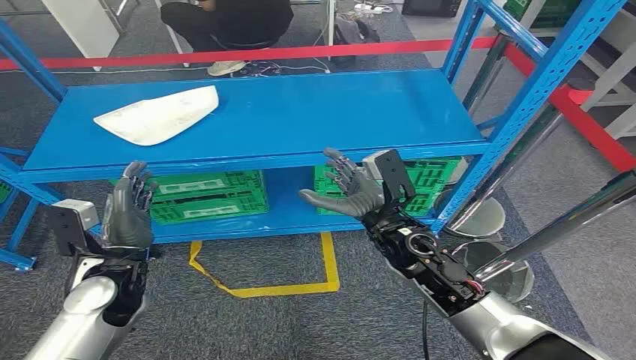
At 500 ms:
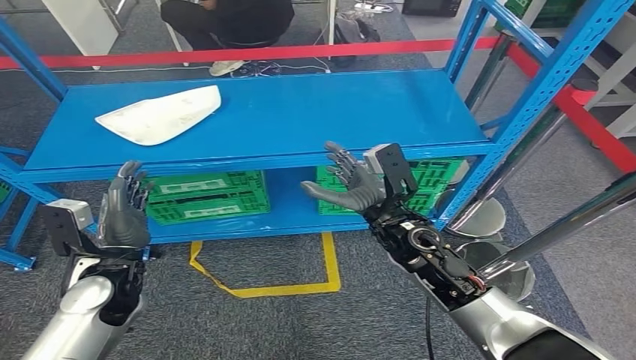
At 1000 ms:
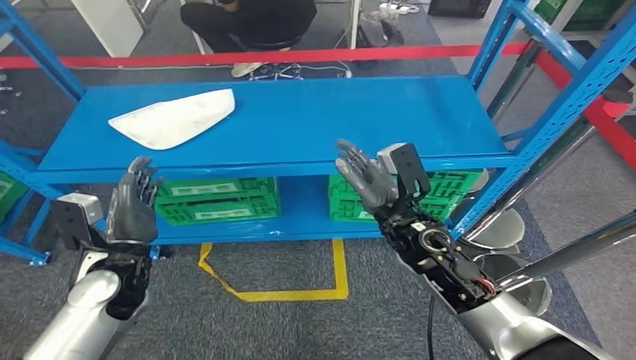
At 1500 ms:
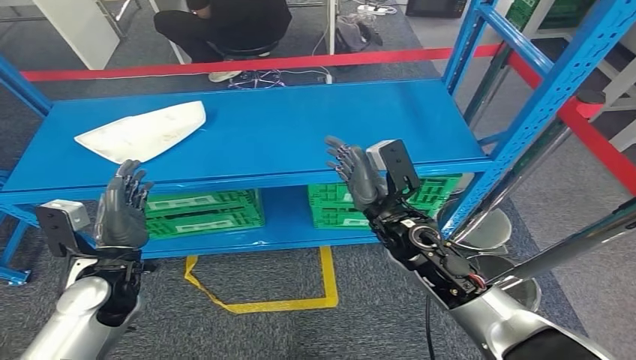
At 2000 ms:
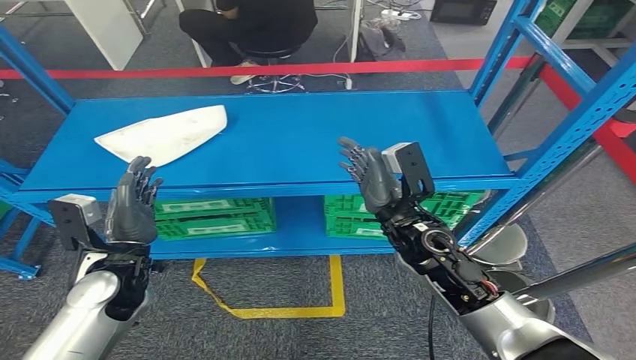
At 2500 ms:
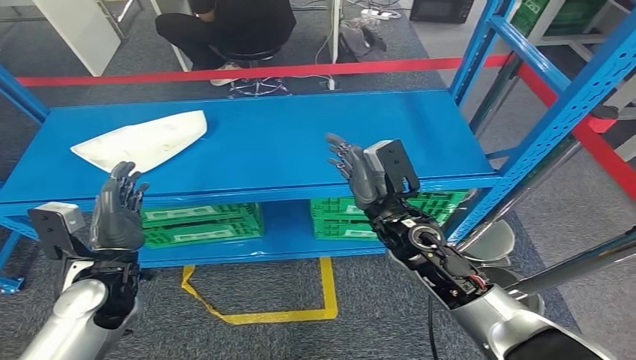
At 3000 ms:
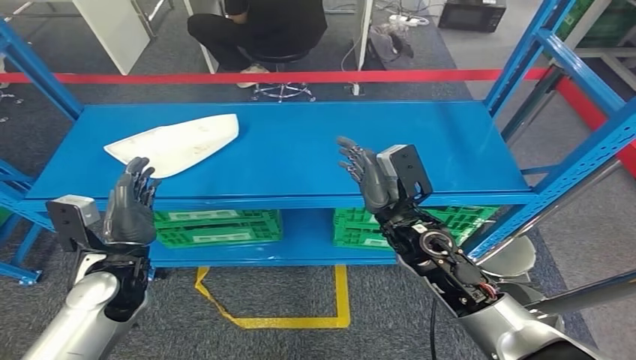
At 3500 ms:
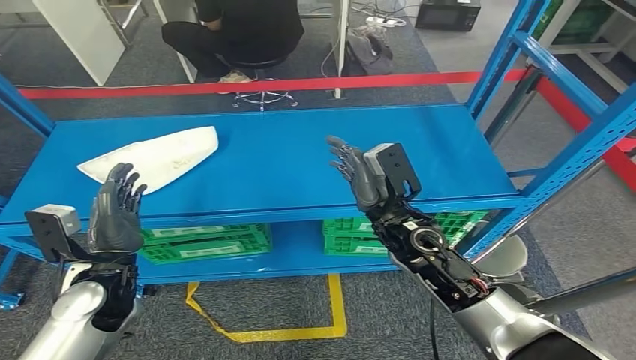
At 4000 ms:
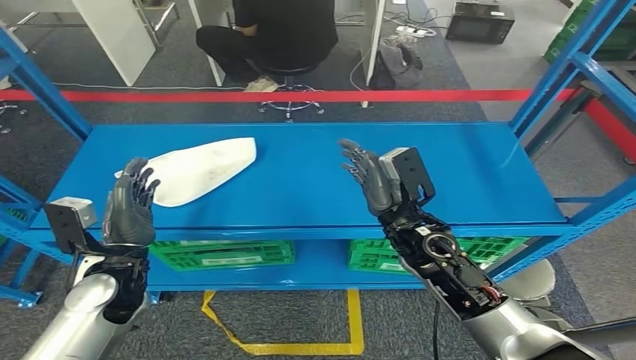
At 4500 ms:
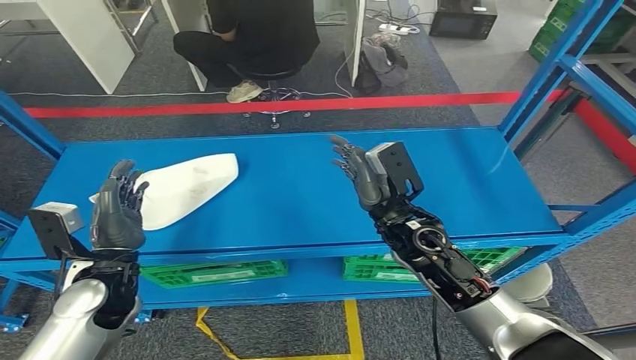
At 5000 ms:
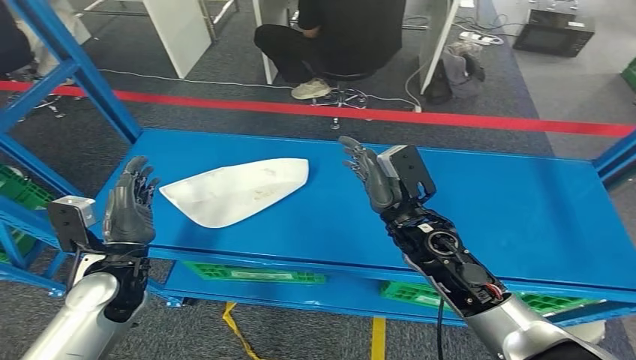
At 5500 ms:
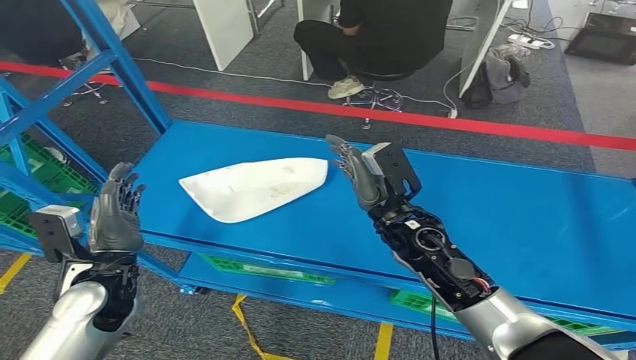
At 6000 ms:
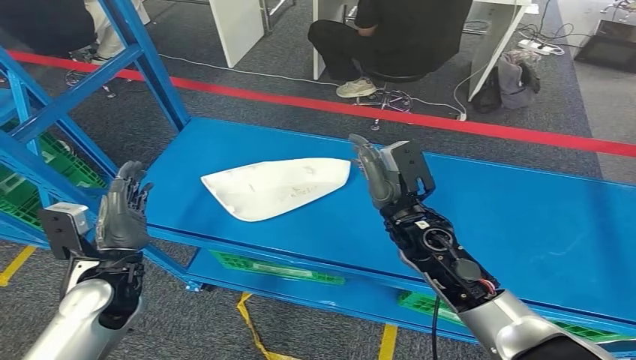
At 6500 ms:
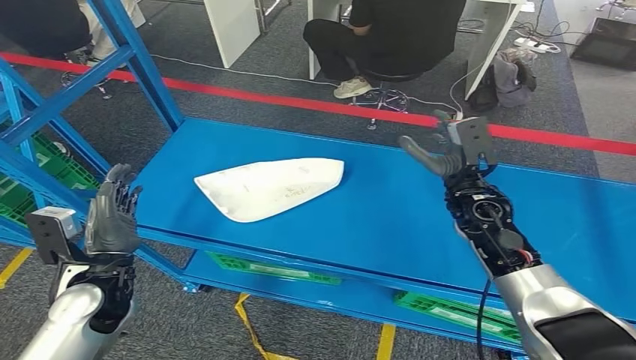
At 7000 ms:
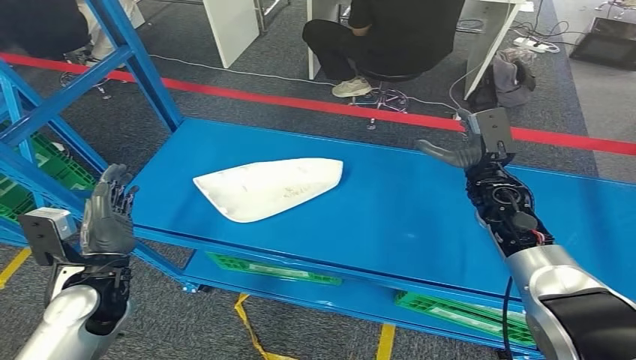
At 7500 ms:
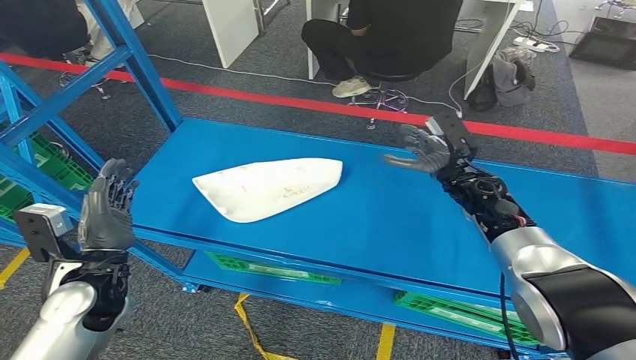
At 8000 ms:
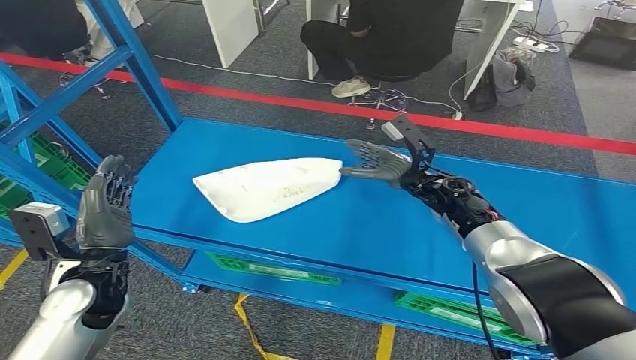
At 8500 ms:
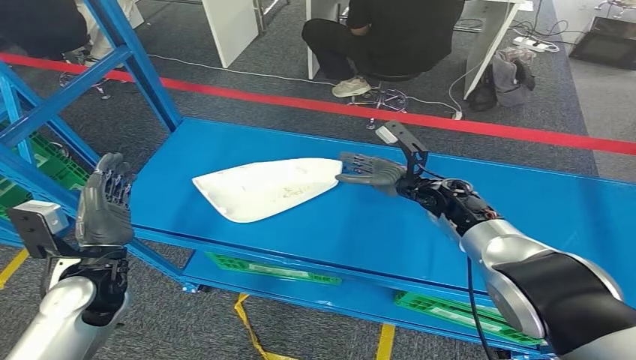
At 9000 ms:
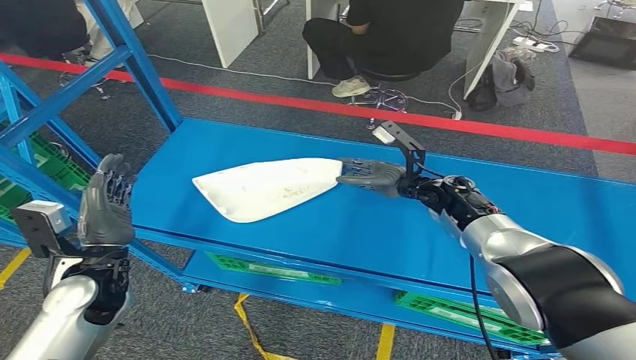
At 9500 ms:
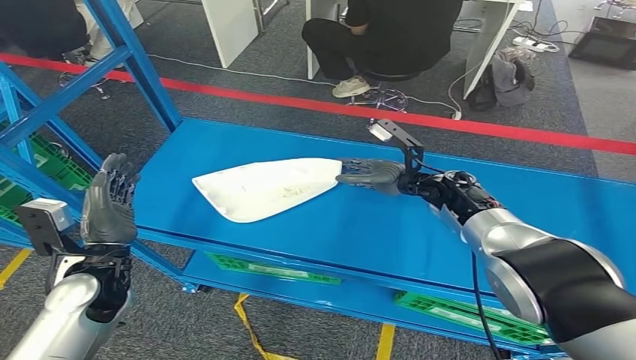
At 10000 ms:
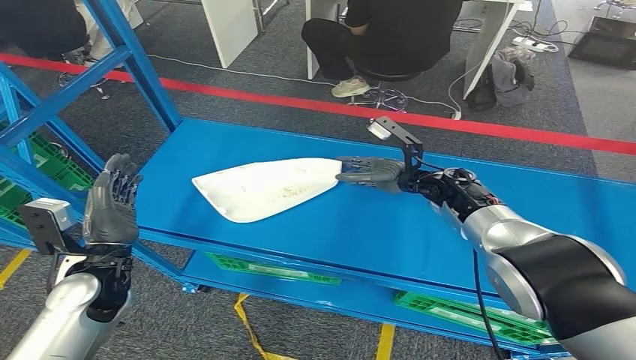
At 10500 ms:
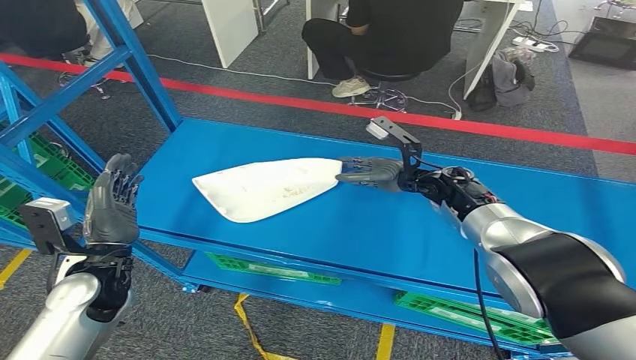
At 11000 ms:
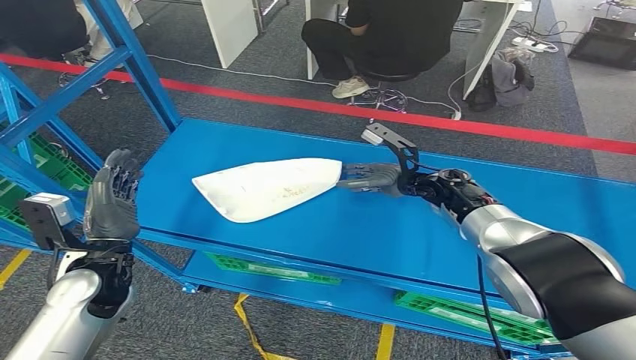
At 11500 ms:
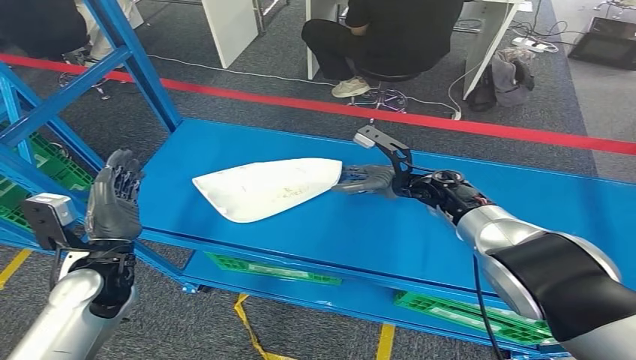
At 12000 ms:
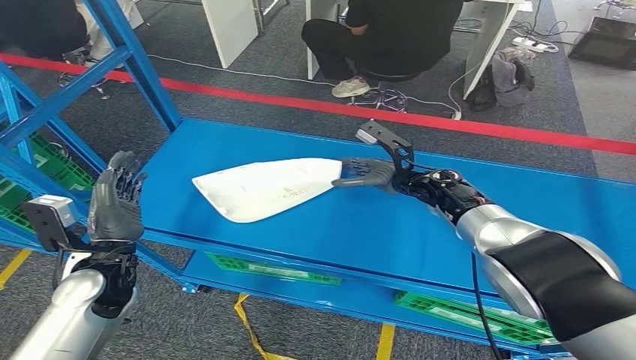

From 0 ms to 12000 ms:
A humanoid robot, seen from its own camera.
From 8000 ms to 10000 ms: The hands make only small movements.
From 10000 ms to 12000 ms: There are only small adjustments of the hands.

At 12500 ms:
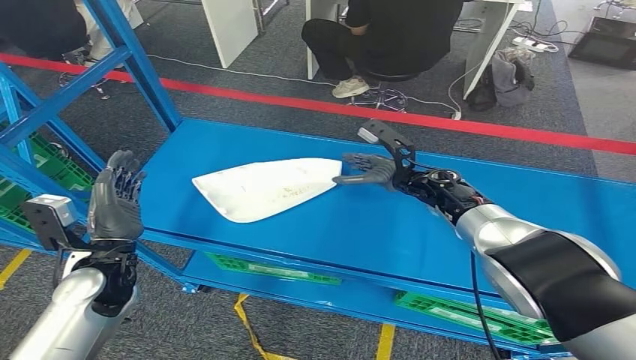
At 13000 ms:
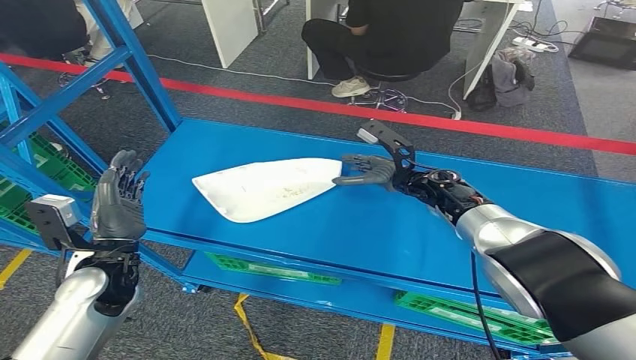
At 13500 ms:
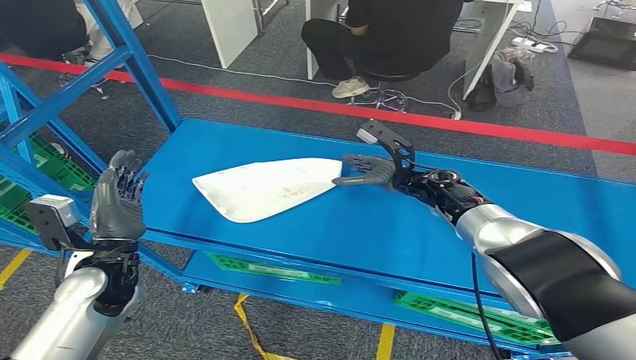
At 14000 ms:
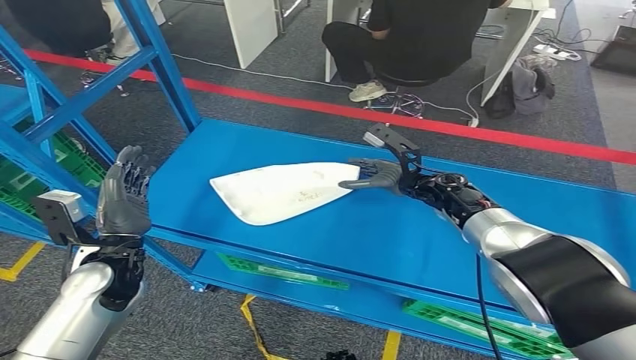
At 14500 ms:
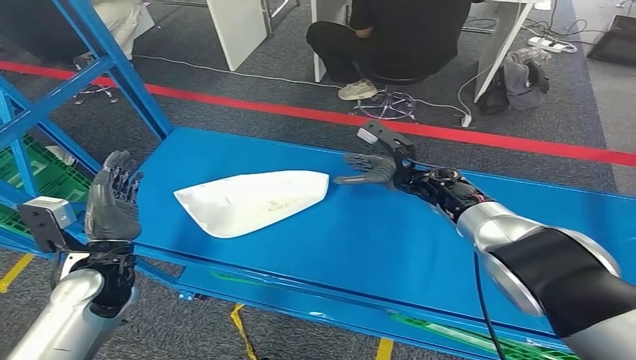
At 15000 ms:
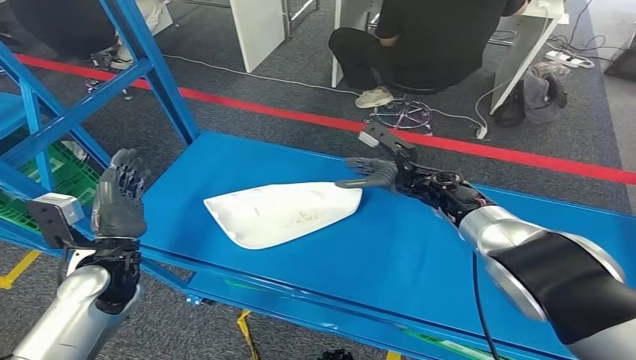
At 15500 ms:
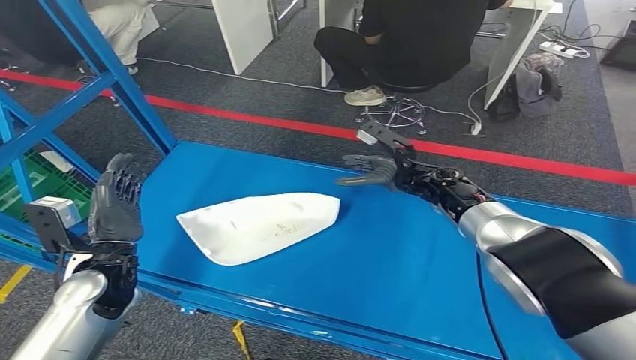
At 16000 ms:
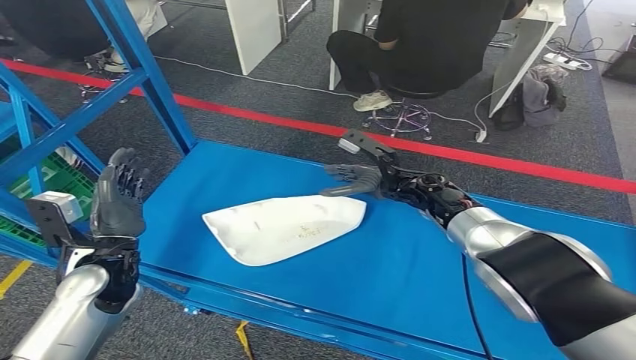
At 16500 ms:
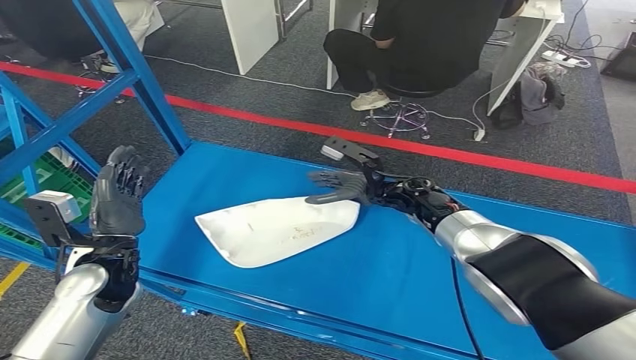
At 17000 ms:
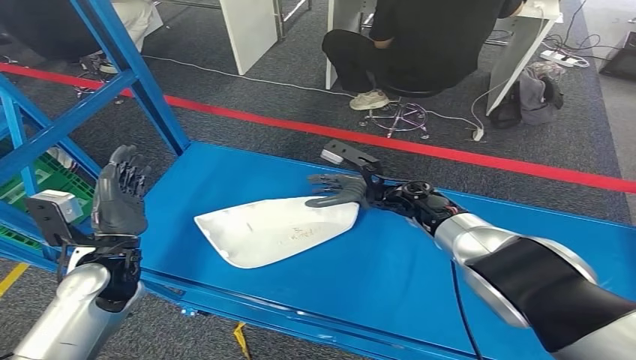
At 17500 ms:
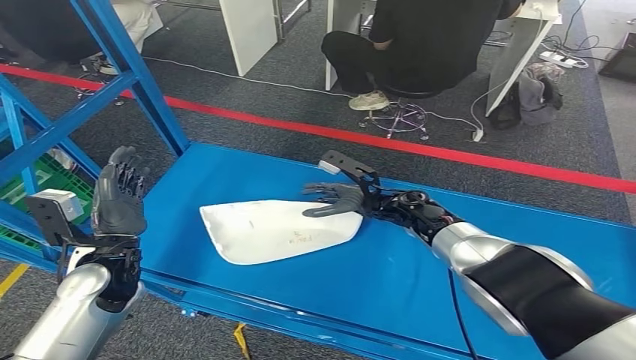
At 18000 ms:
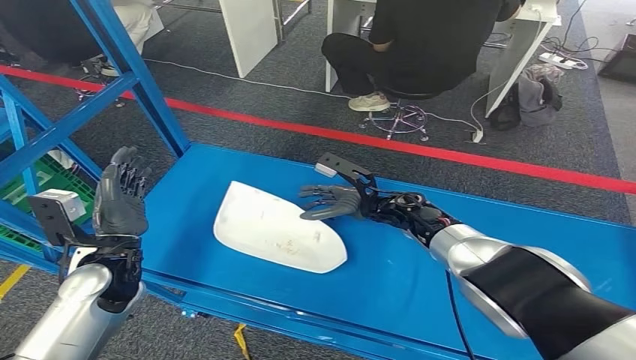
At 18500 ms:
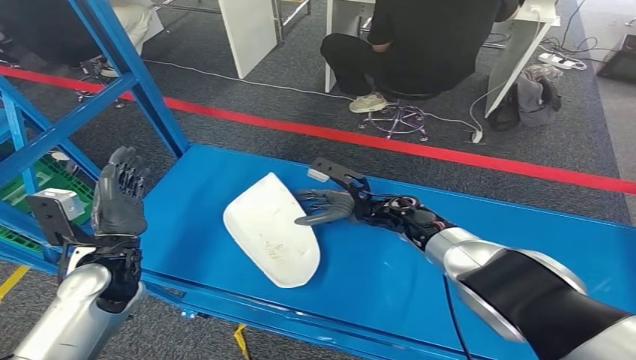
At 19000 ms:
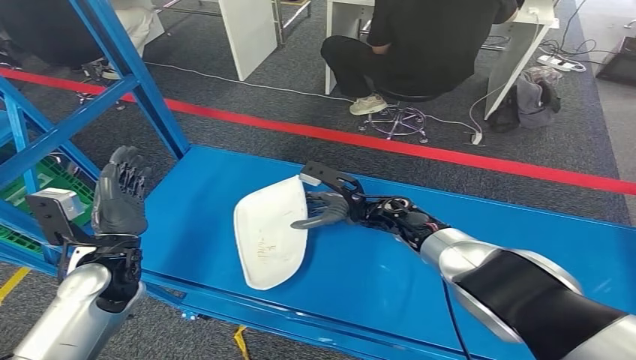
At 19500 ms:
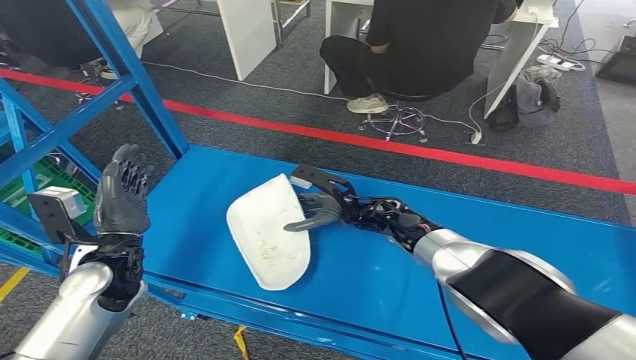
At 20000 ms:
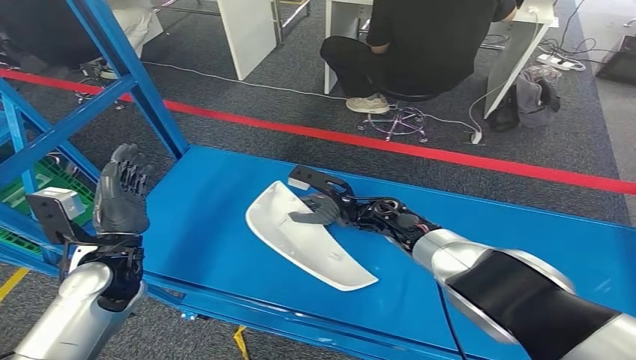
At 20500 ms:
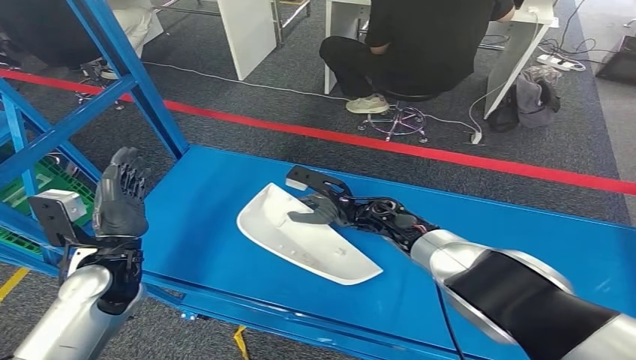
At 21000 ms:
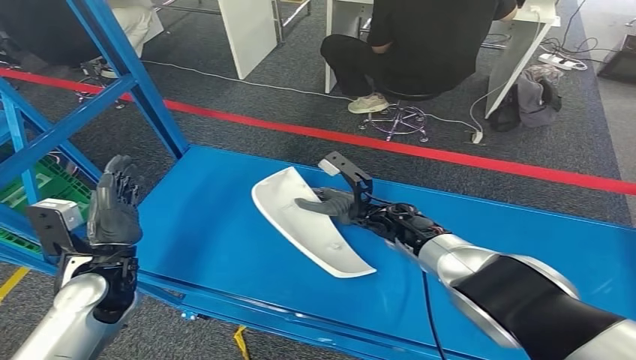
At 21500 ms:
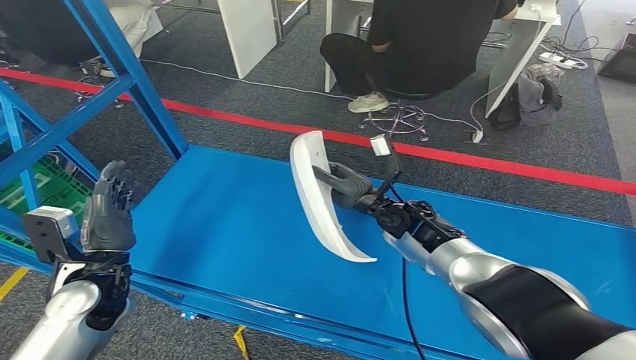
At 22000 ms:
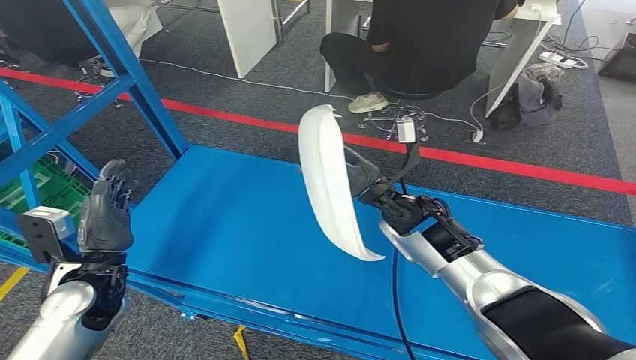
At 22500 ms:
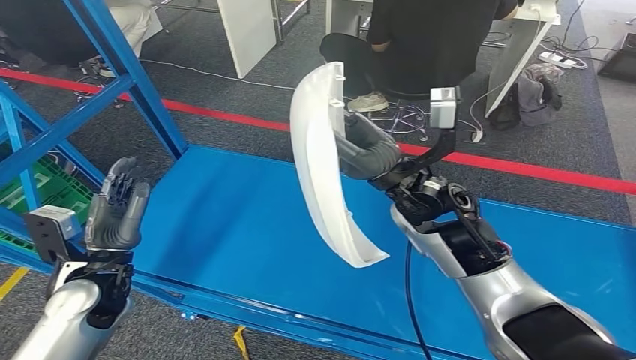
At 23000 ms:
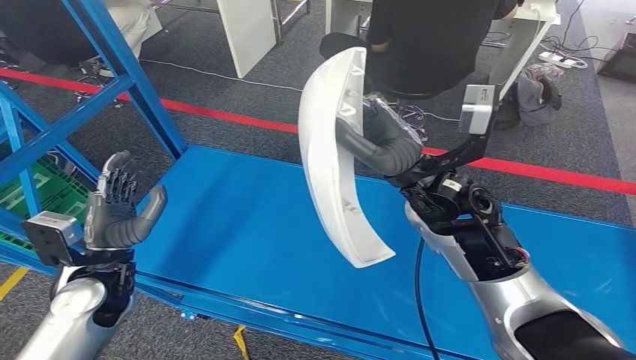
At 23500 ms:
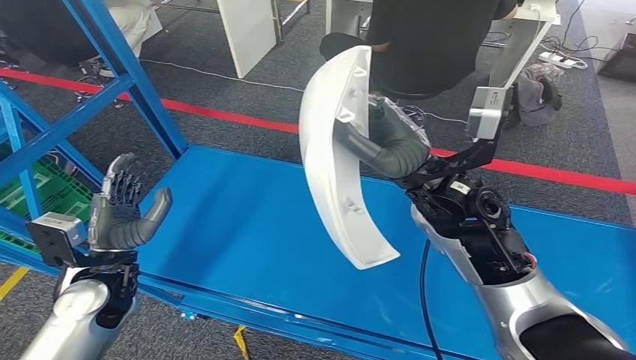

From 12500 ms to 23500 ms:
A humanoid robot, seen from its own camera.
Step, from 12500 ms to 22500 ms: Pick up the small component from the shelf.
From 18000 ms to 20000 ms: There are only small adjustments of the hands.
